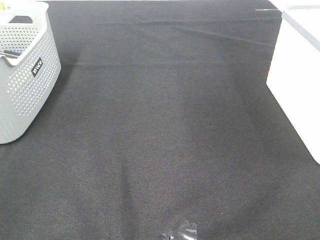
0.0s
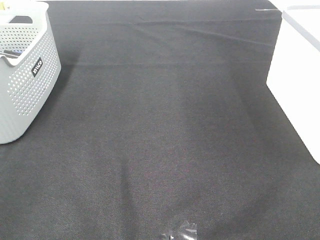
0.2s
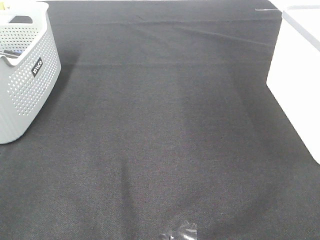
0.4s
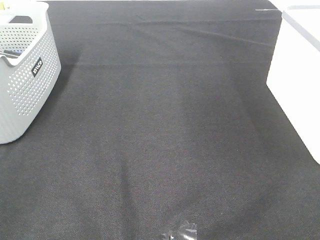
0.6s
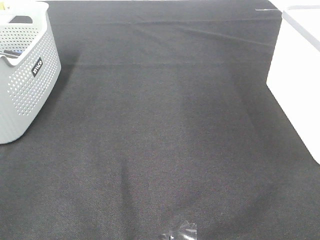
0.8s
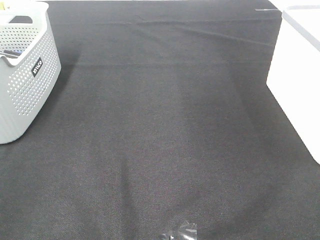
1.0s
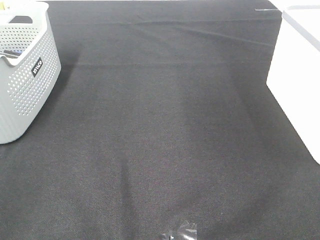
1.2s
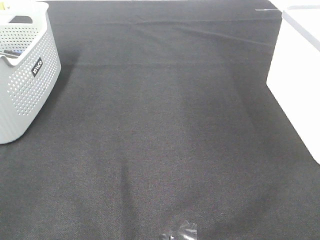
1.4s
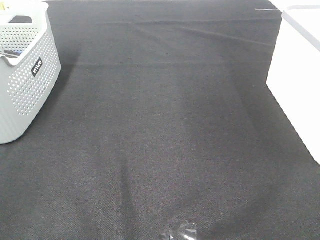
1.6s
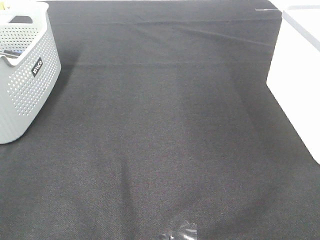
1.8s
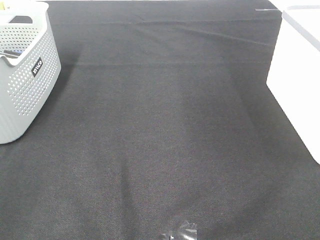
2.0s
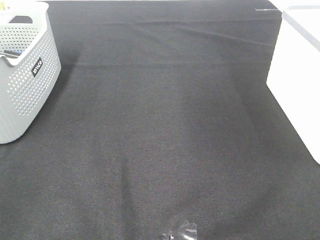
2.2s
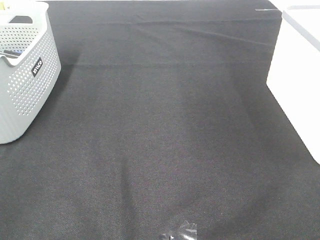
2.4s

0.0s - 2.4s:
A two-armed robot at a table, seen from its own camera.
0.0s - 2.4s: Both grippers stay about where they are.

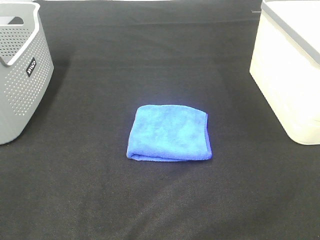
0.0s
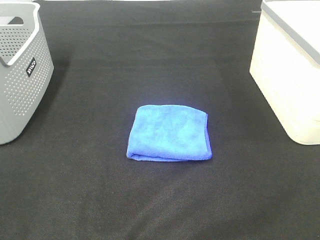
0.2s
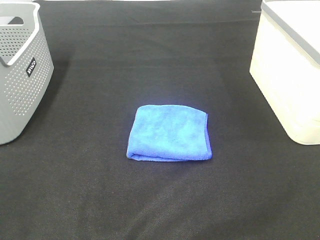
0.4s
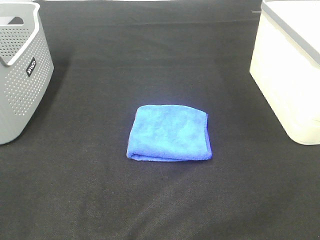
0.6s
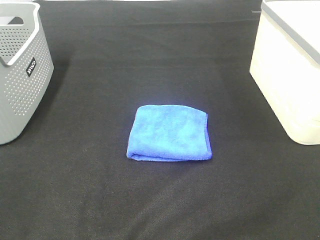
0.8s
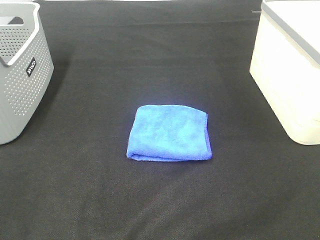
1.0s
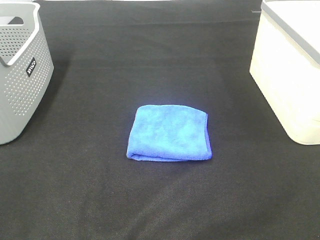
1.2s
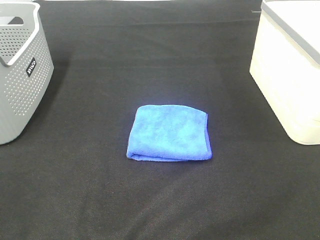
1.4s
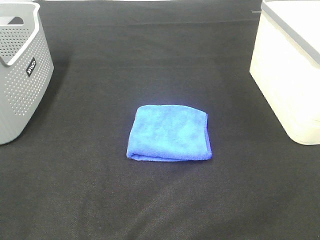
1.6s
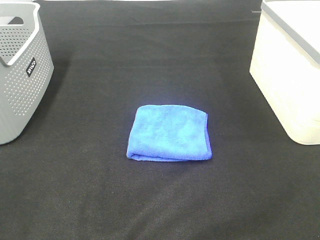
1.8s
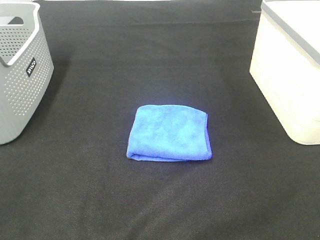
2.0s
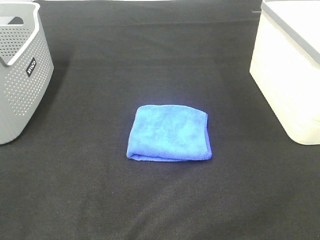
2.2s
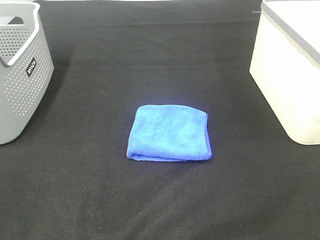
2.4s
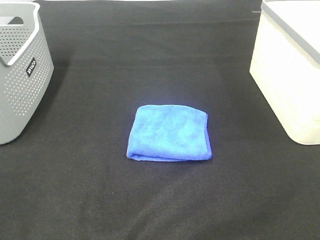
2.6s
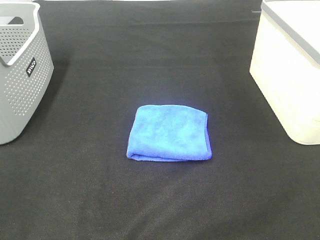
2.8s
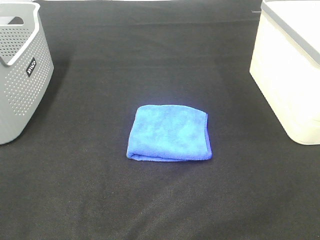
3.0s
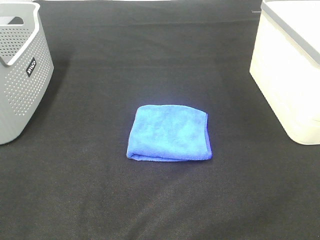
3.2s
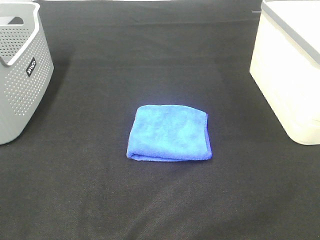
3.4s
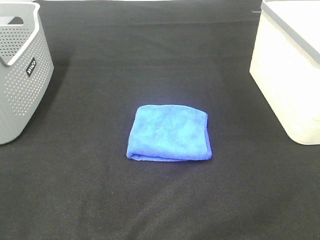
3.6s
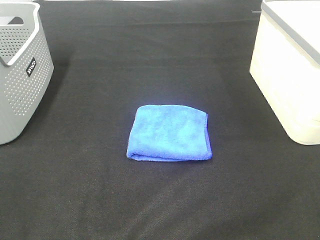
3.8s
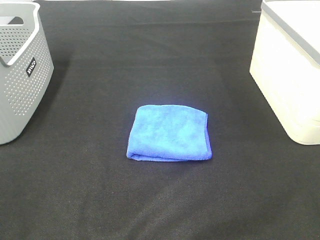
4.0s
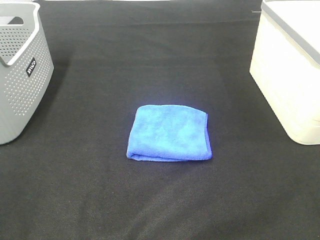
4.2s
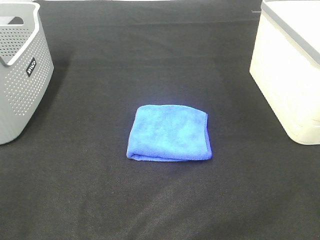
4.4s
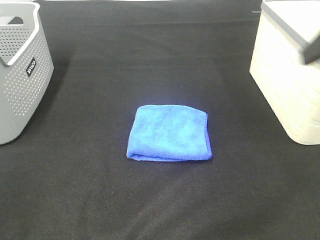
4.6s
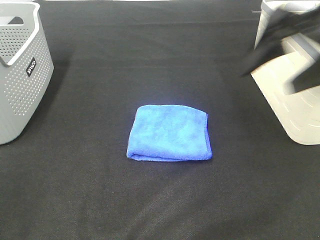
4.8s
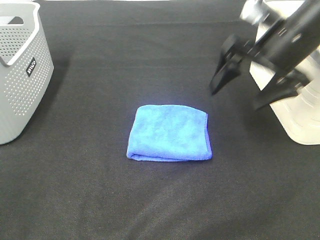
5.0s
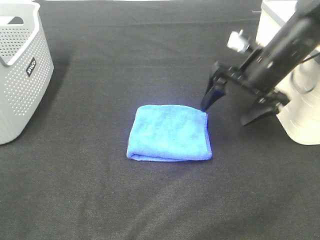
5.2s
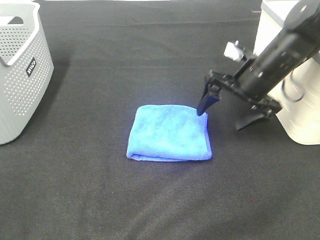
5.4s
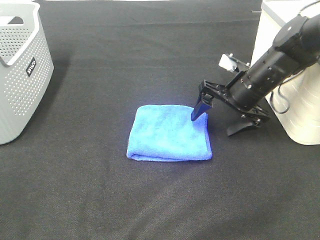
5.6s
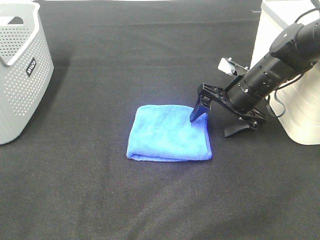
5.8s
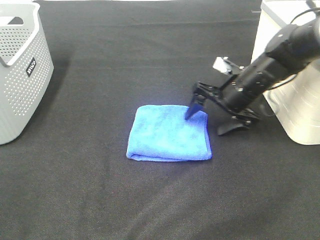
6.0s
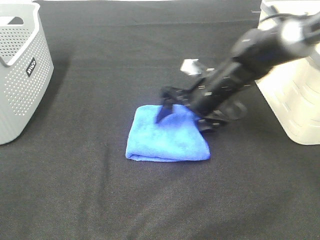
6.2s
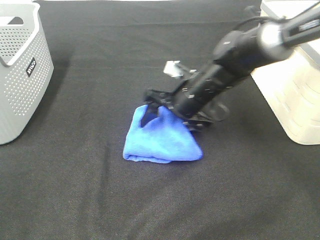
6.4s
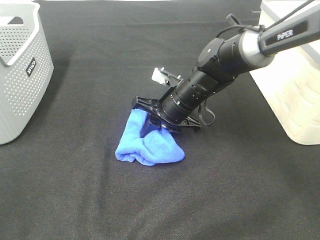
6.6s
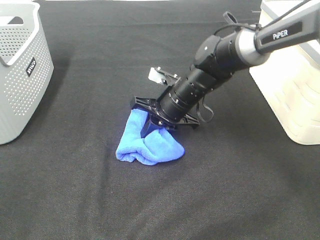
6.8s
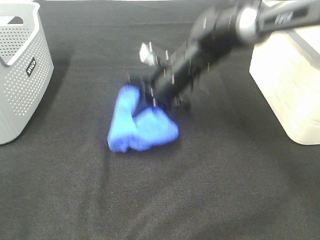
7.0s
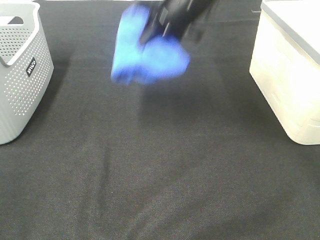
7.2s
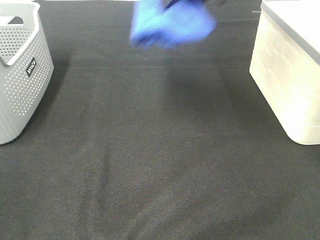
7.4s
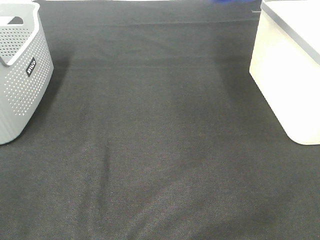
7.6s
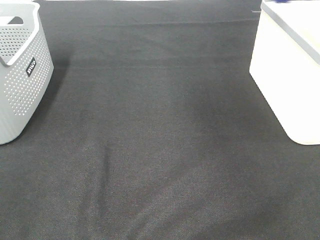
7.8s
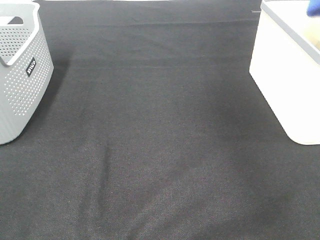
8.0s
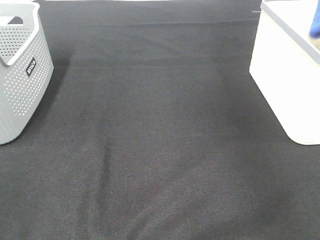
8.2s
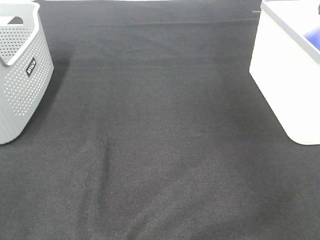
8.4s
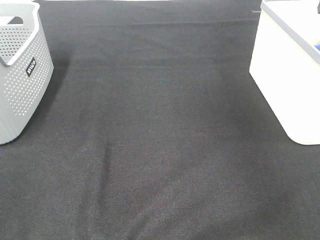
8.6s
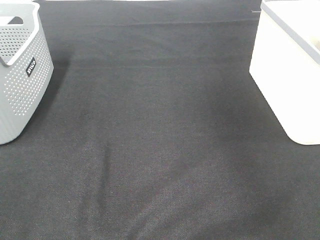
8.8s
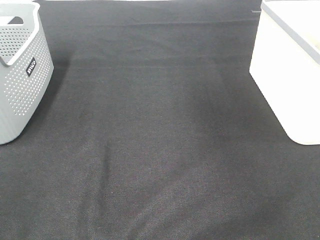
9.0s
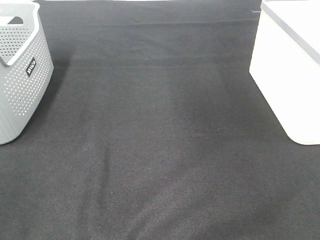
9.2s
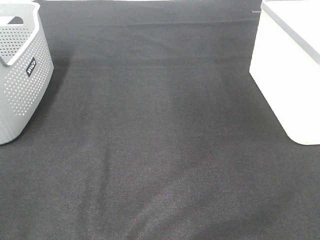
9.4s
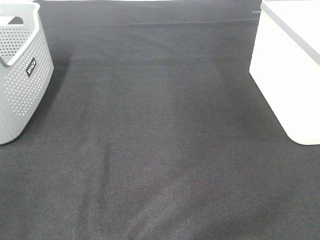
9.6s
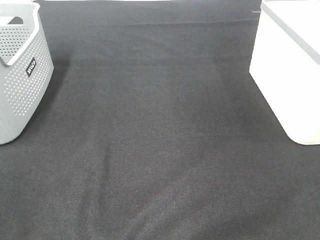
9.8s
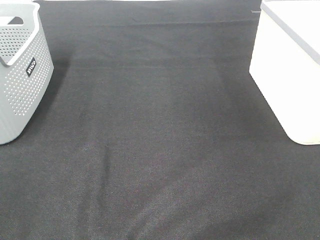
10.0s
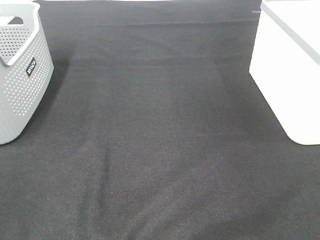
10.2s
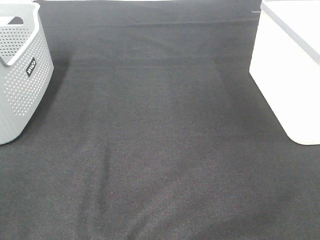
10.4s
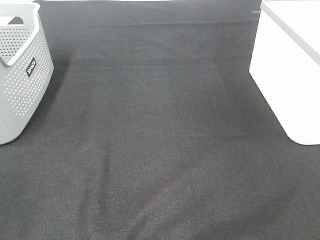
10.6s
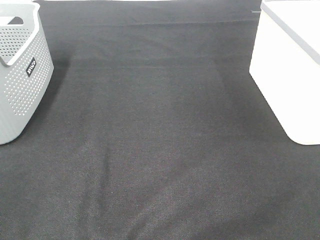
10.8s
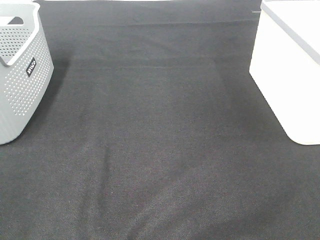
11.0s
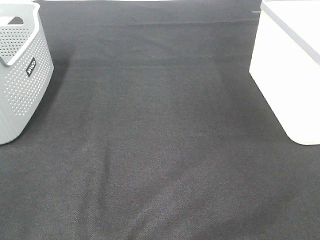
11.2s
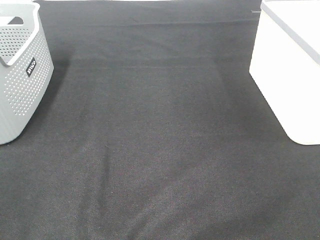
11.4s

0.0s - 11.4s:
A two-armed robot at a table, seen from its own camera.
Step, 0.0s - 6.6s: Right hand: grab the folded blue towel.
Step, 6.8s - 8.4s: Right hand: place the blue towel in right basket.
0.0s - 2.8s: The two grippers keep their place.
4.2s - 5.6s: The right gripper heads forward and downward, covering approximately 35 cm.
5.6s - 7.2s: The right gripper moves upward and to the left, roughly 20 cm, and closes its fingers.
7.2s - 8.6s: The right gripper shifts about 30 cm to the right, and opens its fingers.

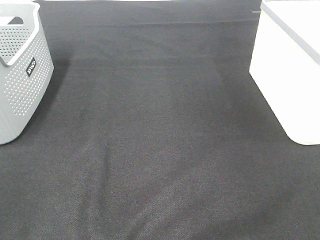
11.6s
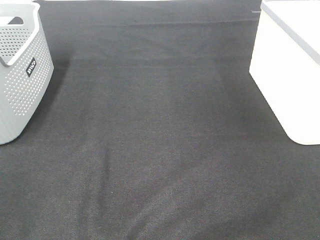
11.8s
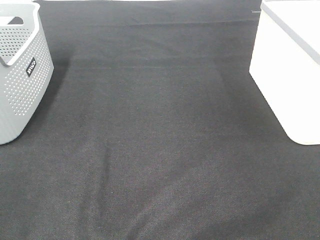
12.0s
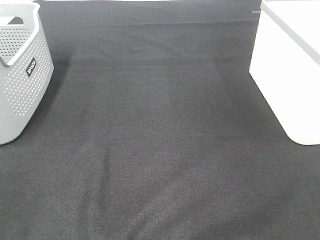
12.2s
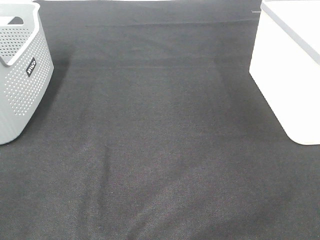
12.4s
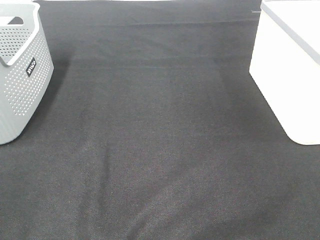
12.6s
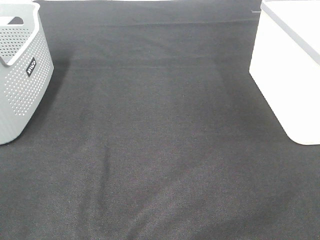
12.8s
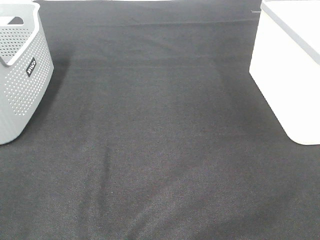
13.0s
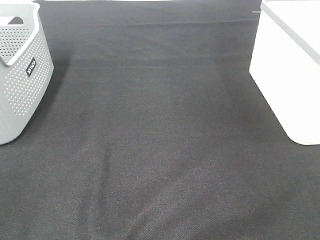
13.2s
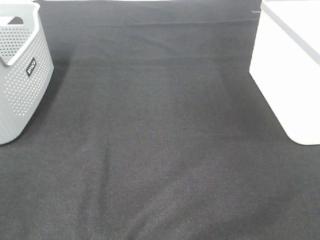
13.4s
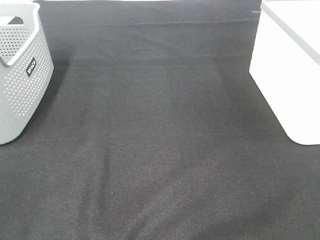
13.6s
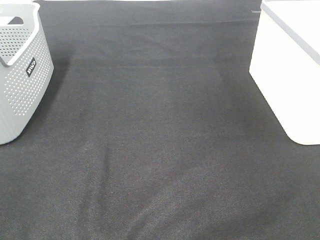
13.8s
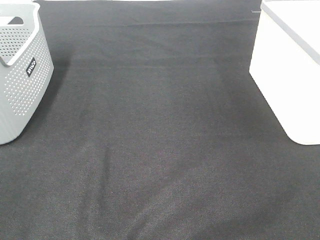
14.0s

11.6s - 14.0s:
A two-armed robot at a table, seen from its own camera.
11.6s - 14.0s: Both grippers stay put.

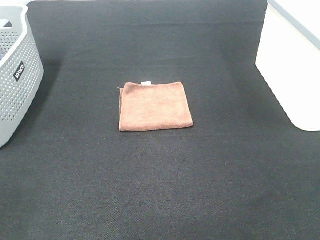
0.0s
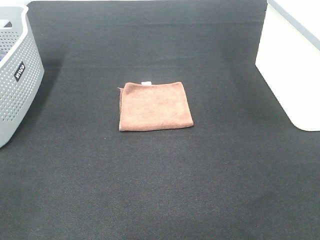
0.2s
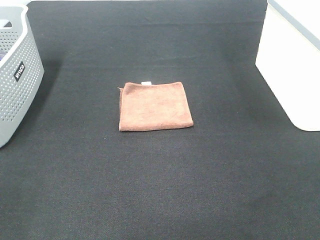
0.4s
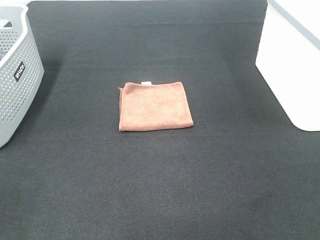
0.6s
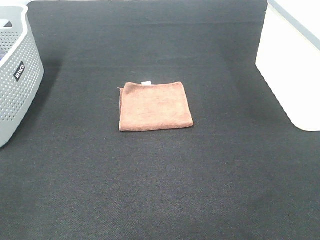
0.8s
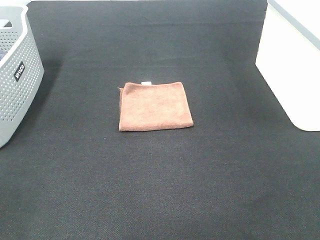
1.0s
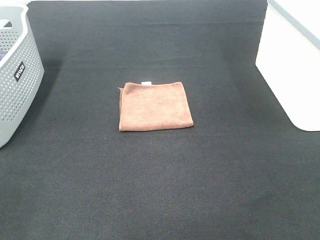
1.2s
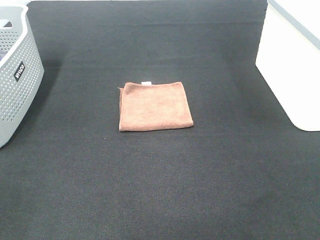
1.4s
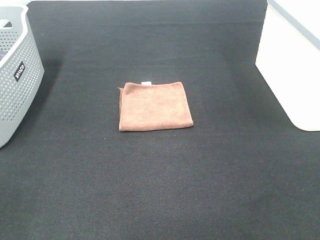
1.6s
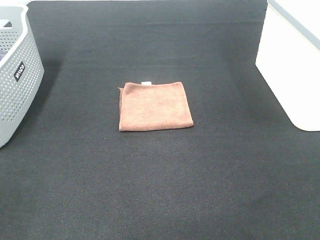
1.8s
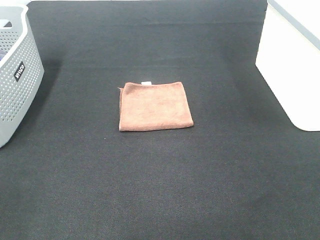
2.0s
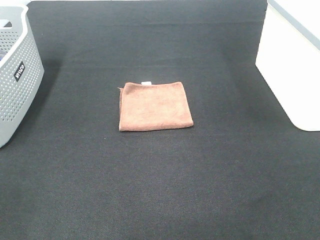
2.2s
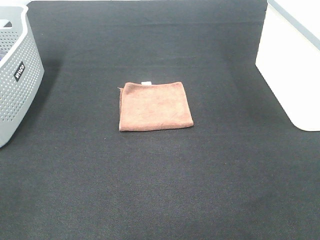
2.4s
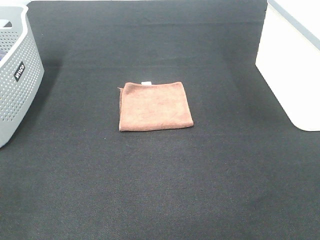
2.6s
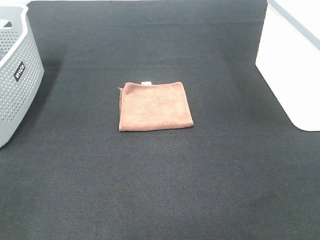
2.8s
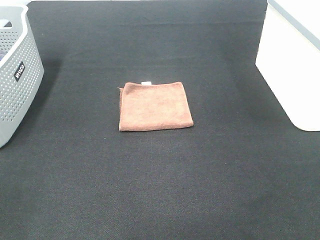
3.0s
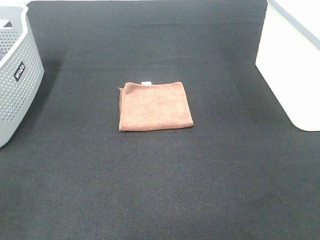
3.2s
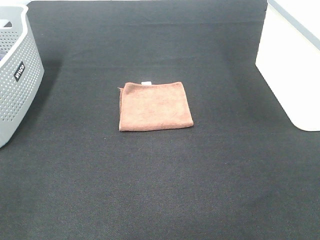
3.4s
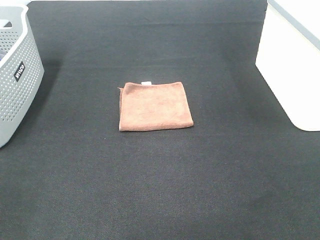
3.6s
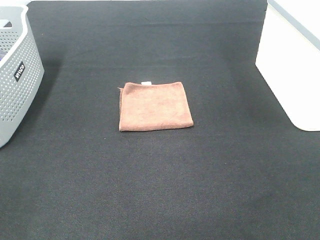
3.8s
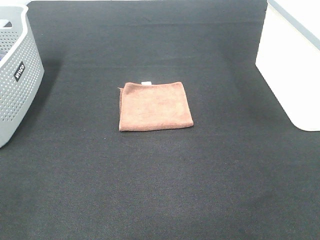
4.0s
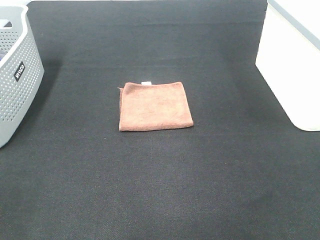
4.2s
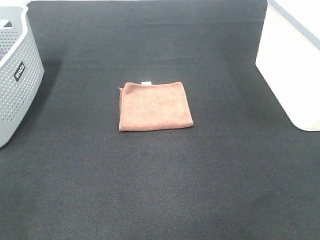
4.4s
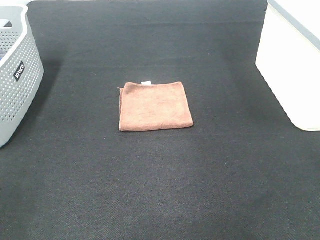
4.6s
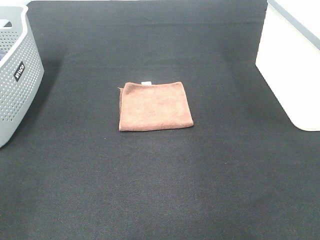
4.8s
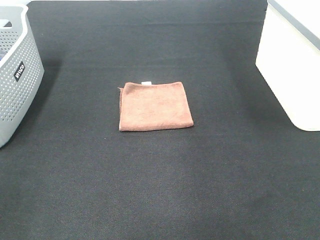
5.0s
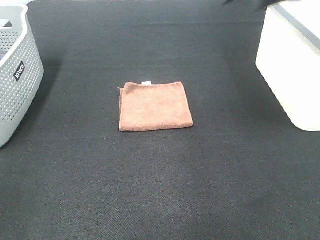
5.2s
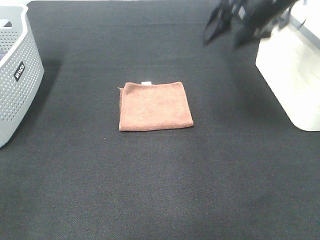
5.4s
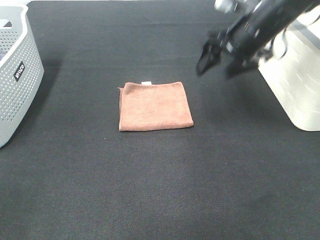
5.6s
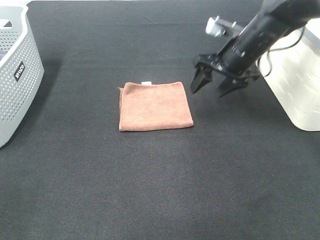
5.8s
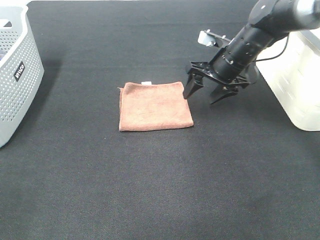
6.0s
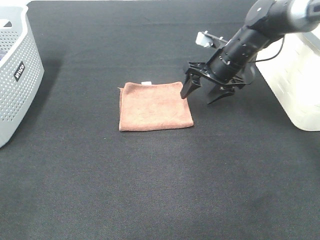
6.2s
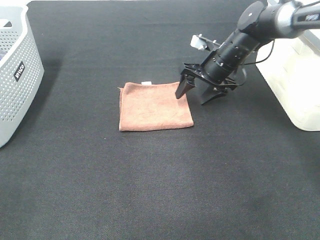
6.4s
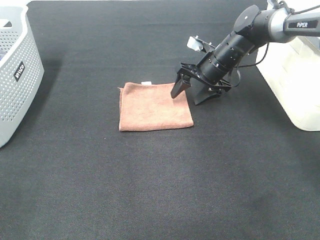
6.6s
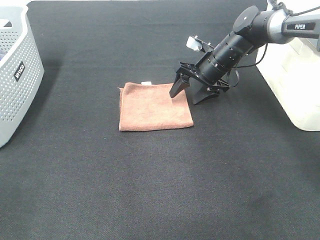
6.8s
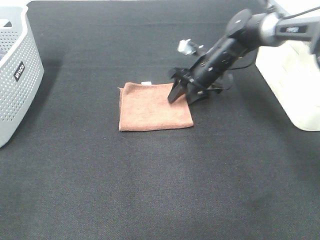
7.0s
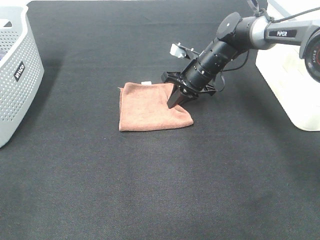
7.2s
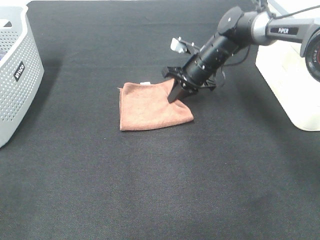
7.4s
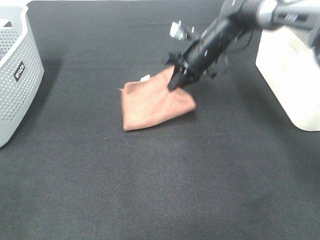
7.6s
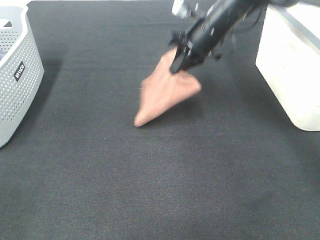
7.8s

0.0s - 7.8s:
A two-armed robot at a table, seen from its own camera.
Step, 0.0s - 7.4s: Right hand: grab the folded brown towel.
0.0s - 3.2s: Both grippers stay put.
4.6s - 6.2s: The right gripper travels downward, forward and to the left by roughly 35 cm.
6.2s - 7.8s: The right gripper moves upward, roughly 10 cm, and closes up.
